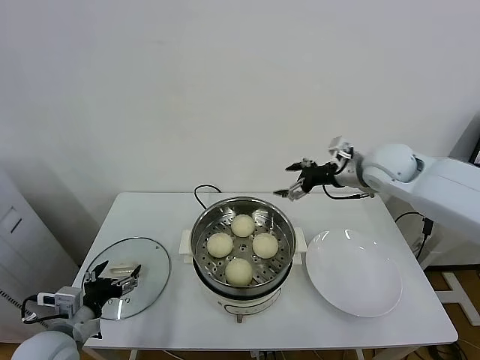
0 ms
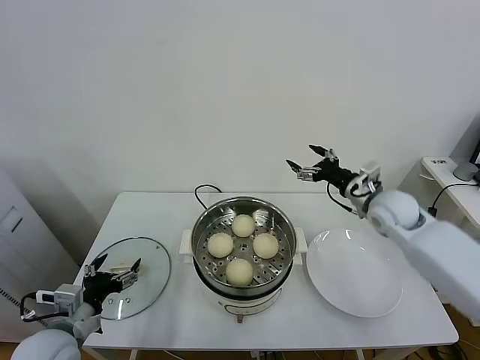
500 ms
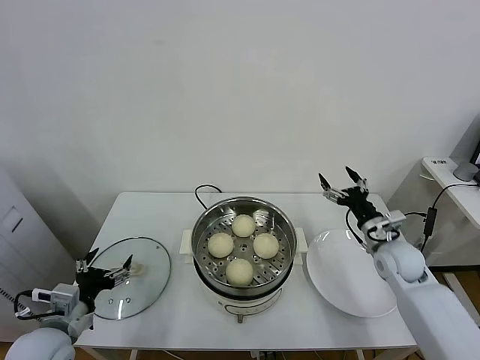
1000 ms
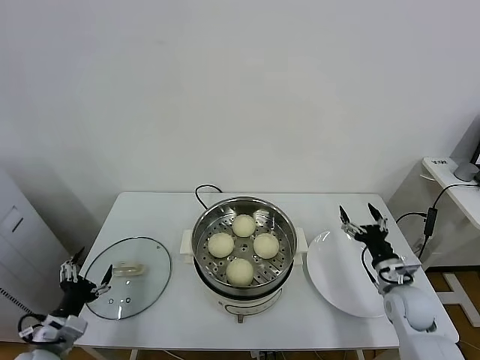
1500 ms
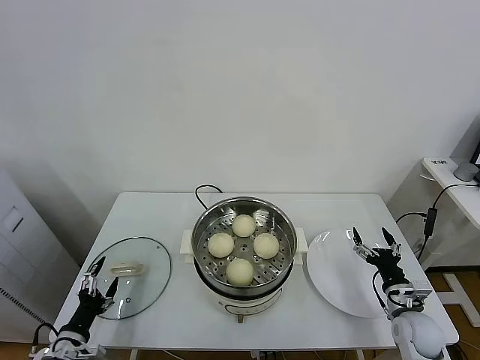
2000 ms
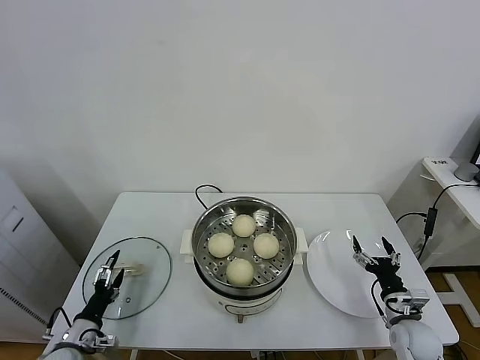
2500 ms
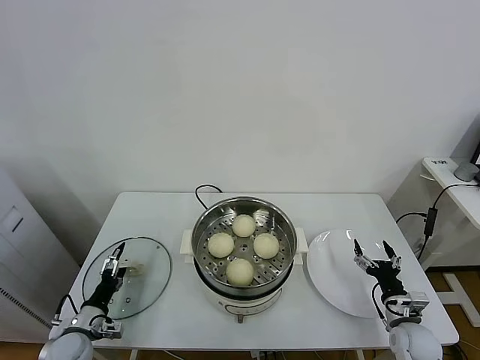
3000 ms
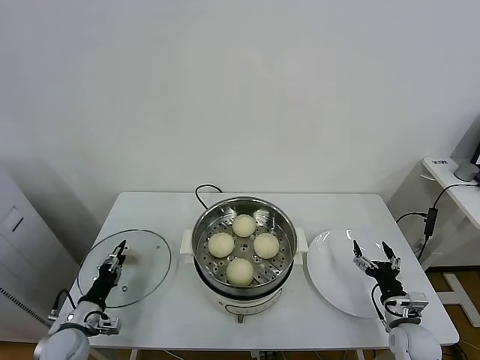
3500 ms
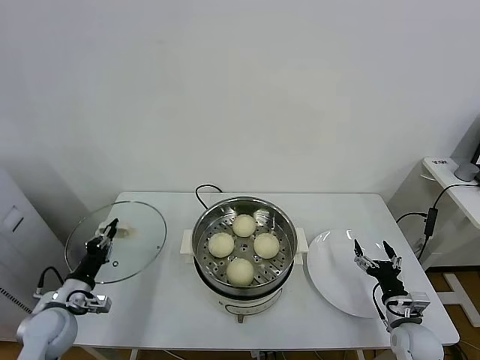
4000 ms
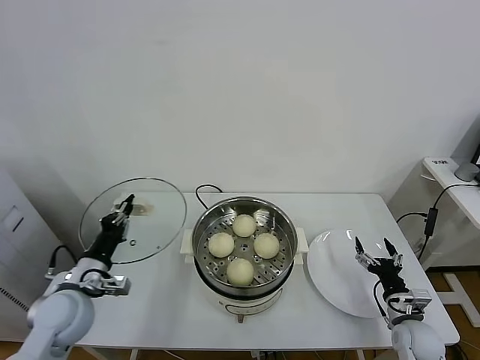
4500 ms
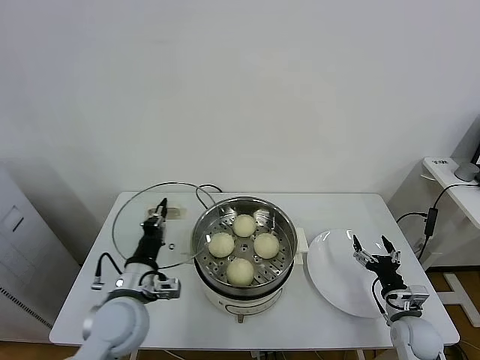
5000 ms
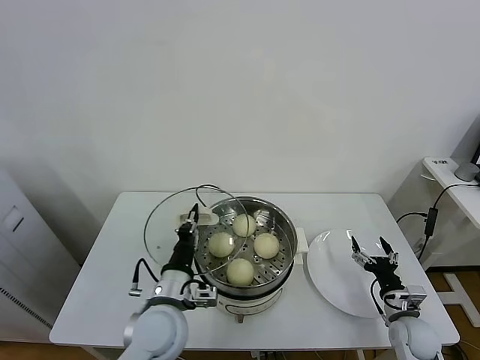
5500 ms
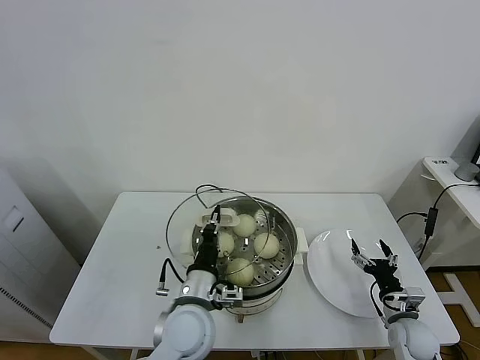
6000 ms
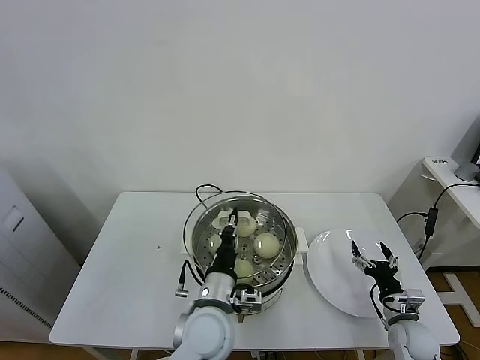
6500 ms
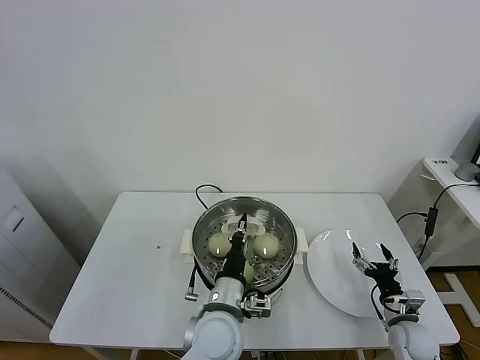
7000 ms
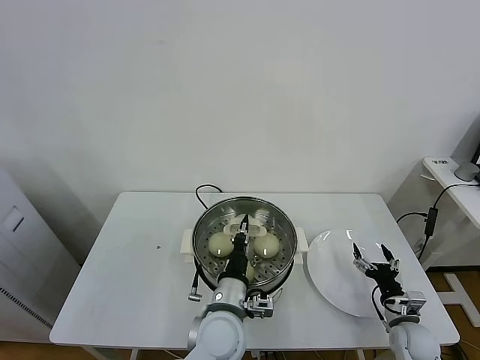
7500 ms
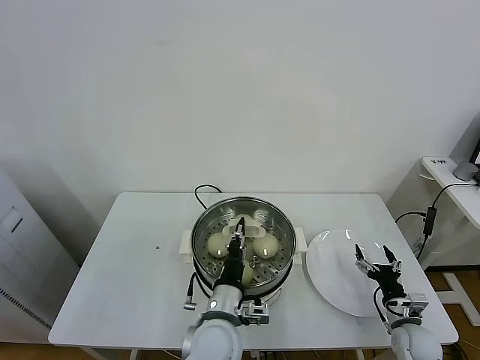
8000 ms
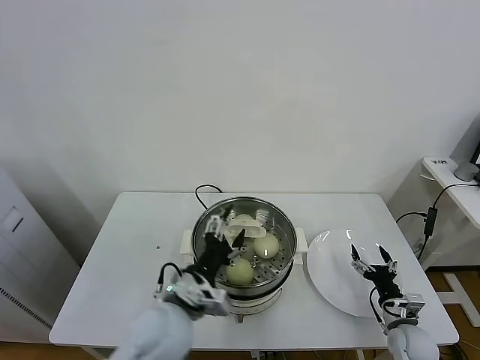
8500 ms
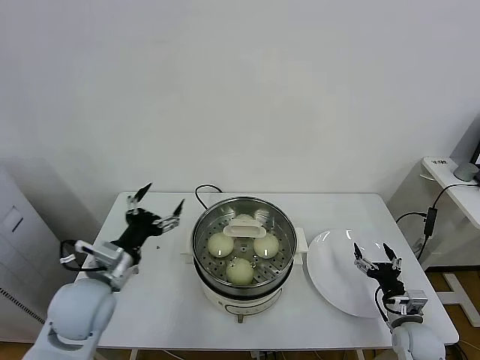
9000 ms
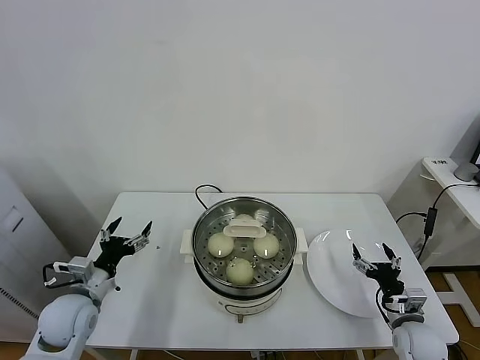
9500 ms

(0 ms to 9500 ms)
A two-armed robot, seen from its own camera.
Task of the whole recording: take steamed baozi put them in steamer.
Step, 0 ms - 3500 ms: Grasp the pot lid with left gripper.
Step, 4000 ms - 8000 ms: Place the pot lid on the steamer with left gripper.
0 ms - 2000 ms: The left gripper shifts roughly 15 cm downward and to the left; the right gripper travels downward and backward by about 40 cm.
2000 ms - 4000 ms: The left gripper shifts approximately 10 cm forward, and closes.
4000 ms - 5500 ms: The left gripper moves to the right, about 25 cm.
5500 ms - 7500 ms: The left gripper moves to the right, about 10 cm.
7500 ms - 9500 ms: The left gripper is displaced to the left by about 30 cm, and opens.

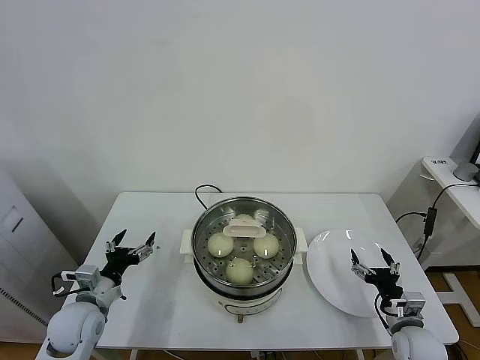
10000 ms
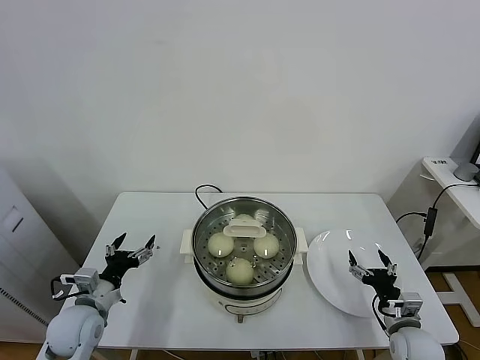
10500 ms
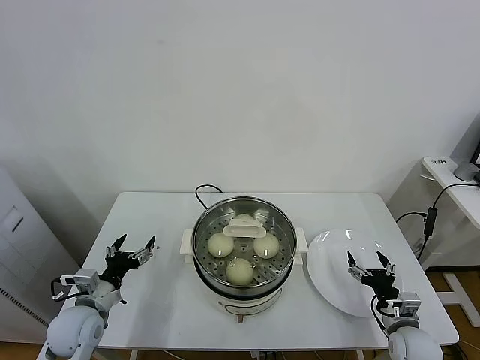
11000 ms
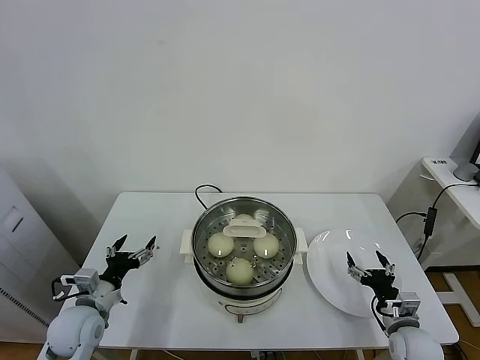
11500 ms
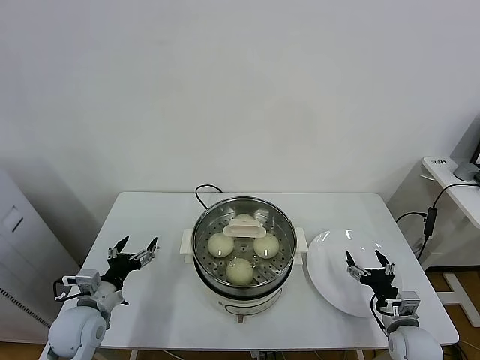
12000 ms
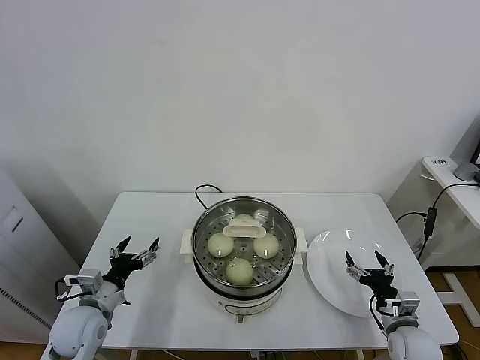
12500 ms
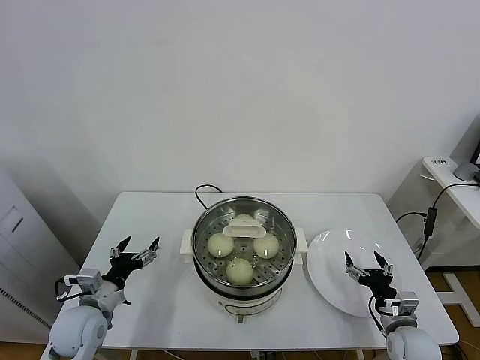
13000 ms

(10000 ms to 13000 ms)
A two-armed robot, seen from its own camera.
Task of the whole recording: take steamed baozi put them in steamer.
10000 ms - 11500 ms: Both grippers stay about where they are.
11500 ms - 13000 ms: The two grippers keep their place.
